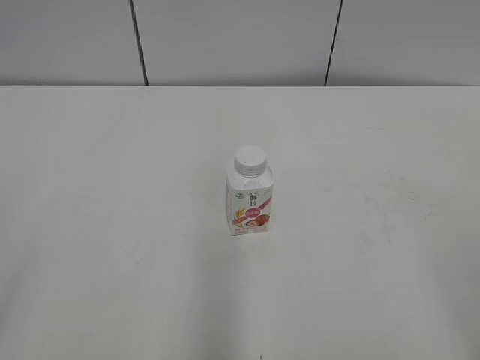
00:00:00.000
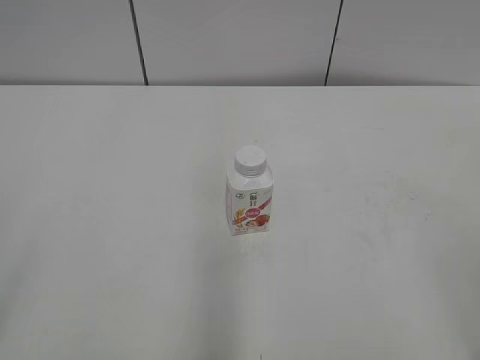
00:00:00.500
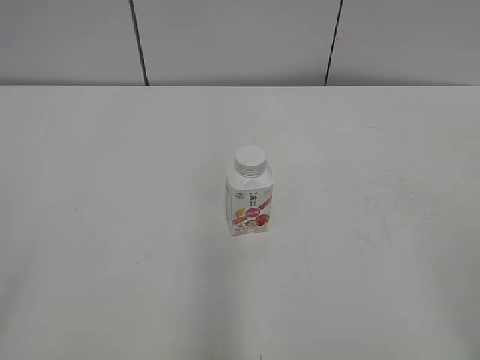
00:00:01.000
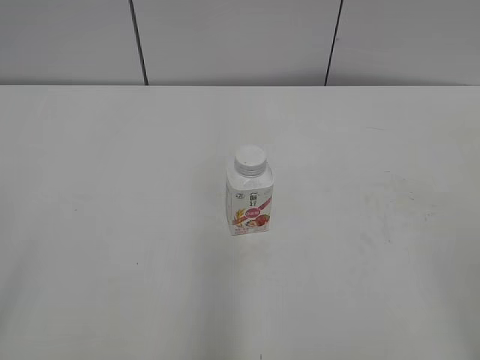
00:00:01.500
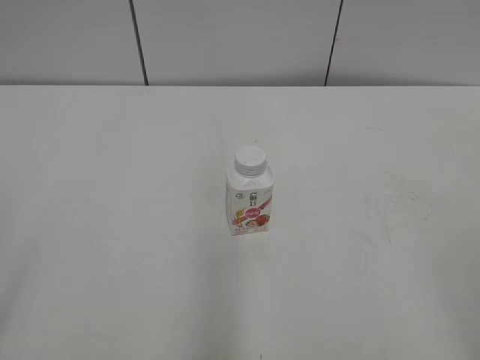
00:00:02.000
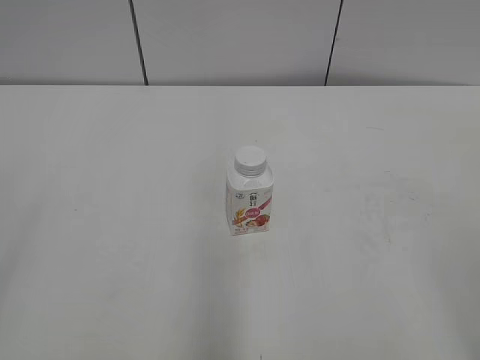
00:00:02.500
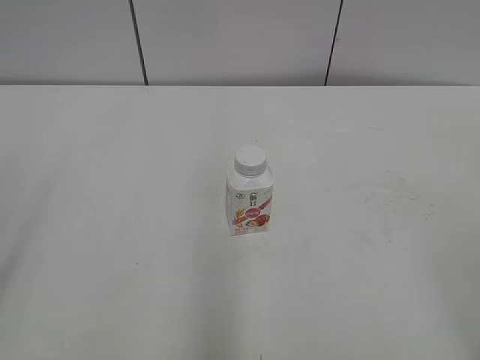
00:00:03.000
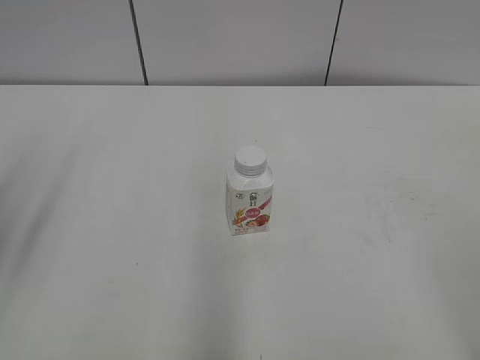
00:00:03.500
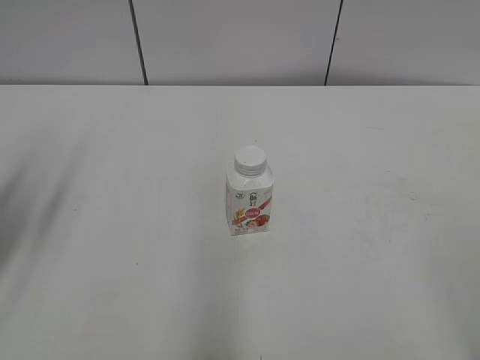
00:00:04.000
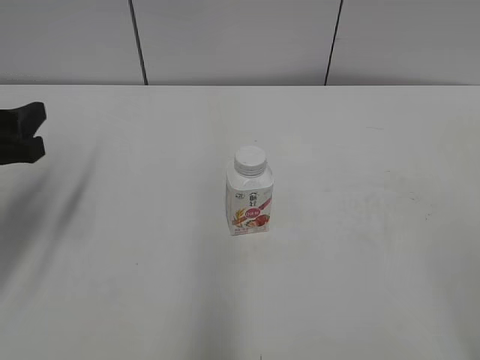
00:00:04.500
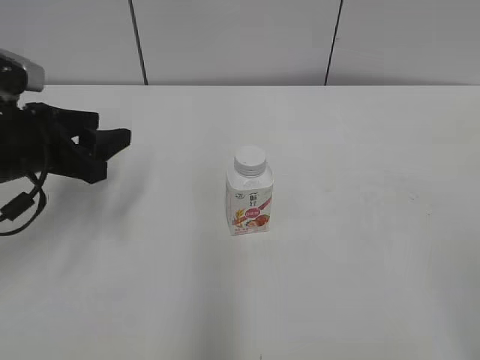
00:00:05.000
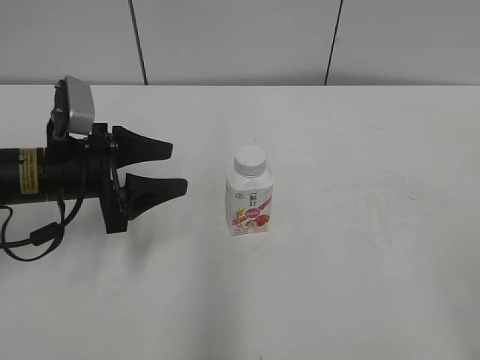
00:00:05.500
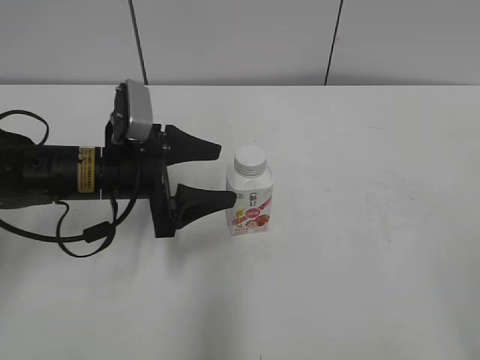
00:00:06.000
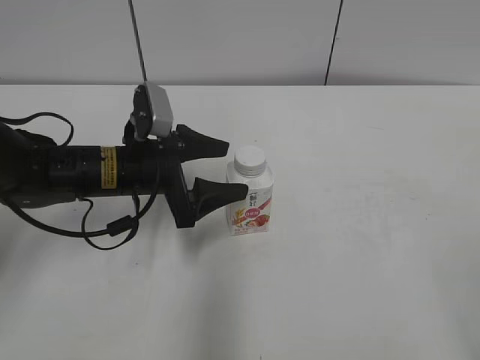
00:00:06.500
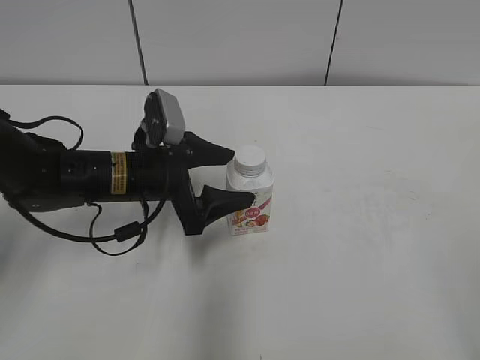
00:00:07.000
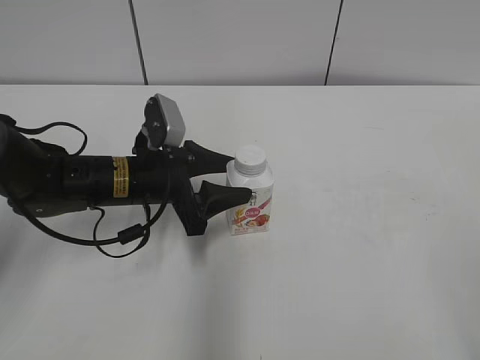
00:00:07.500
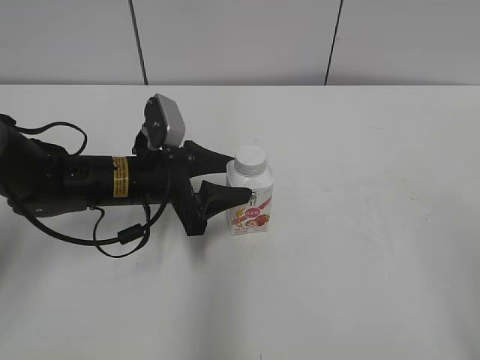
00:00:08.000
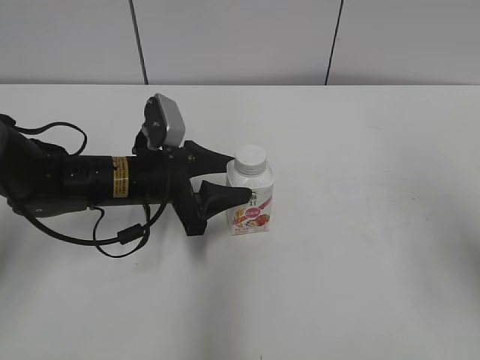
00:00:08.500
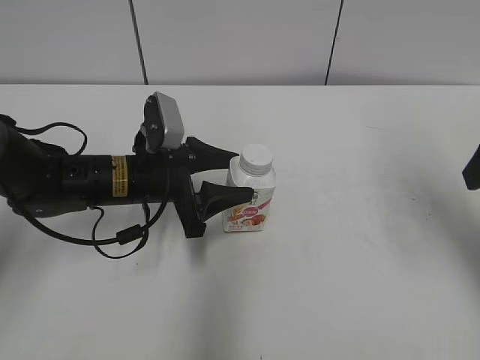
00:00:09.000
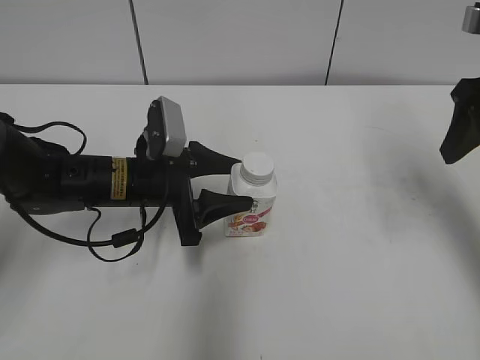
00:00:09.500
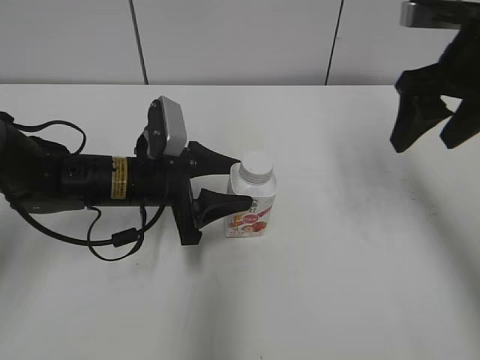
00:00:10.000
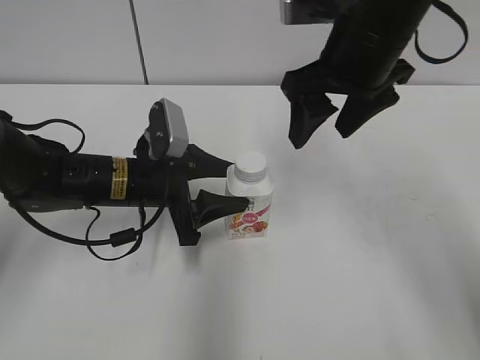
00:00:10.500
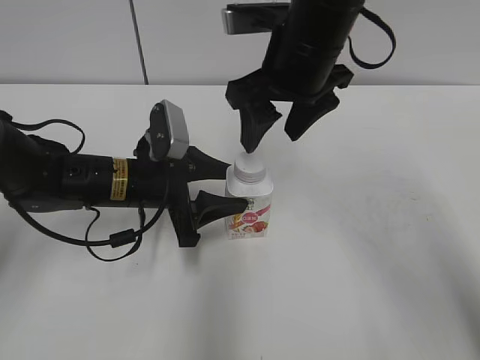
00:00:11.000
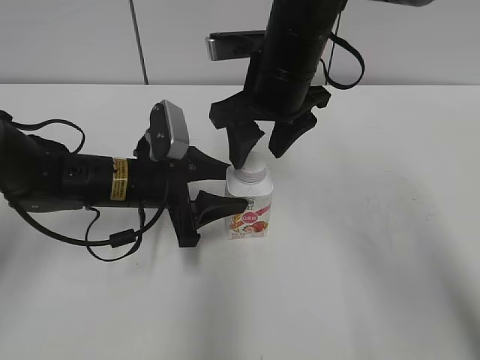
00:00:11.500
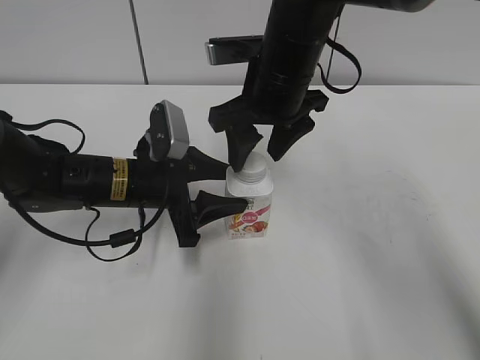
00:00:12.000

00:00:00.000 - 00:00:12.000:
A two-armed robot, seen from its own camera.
Step, 00:00:00.000 - 00:00:08.500: Grab the Yili Changqing with the left hand.
00:00:02.000 - 00:00:04.000: The left gripper shifts approximately 20 cm forward.
00:00:04.000 - 00:00:06.000: The left gripper moves to the right, downward and forward, about 20 cm, and opens up.
00:00:06.000 - 00:00:08.000: The left gripper closes up.
00:00:08.000 - 00:00:10.000: The right gripper goes about 30 cm forward.
00:00:10.000 - 00:00:12.000: The right gripper shifts roughly 15 cm to the left.

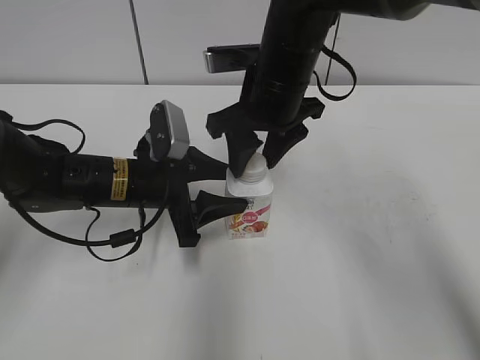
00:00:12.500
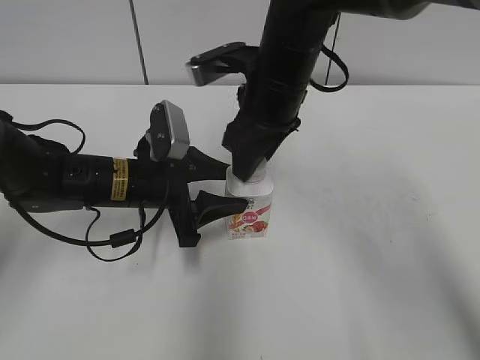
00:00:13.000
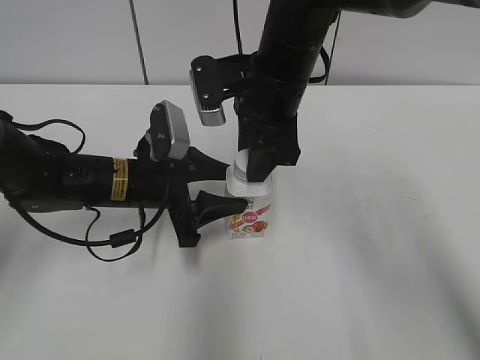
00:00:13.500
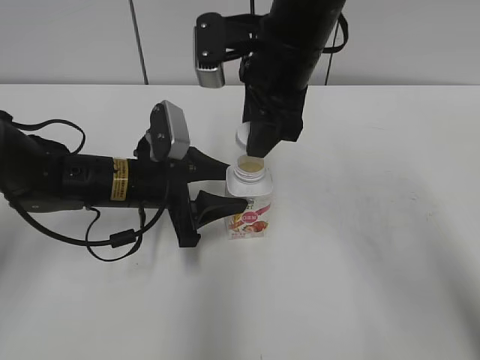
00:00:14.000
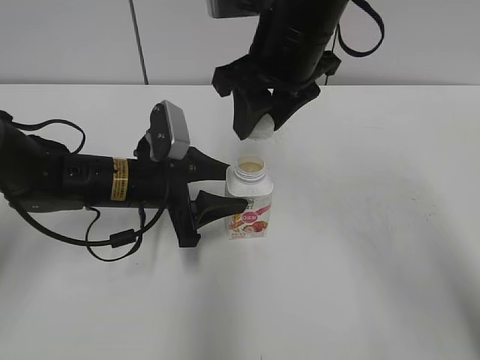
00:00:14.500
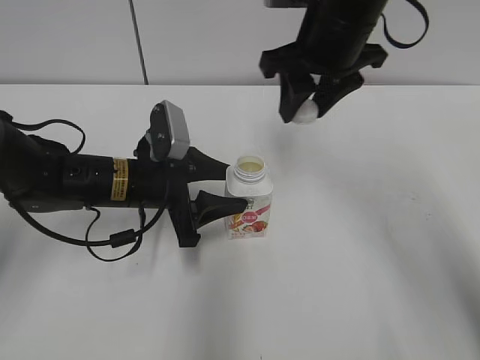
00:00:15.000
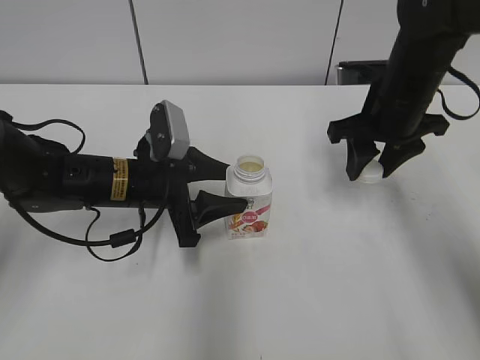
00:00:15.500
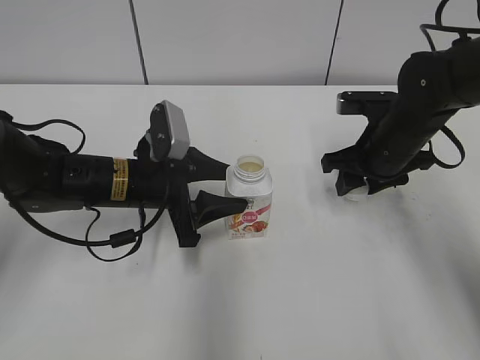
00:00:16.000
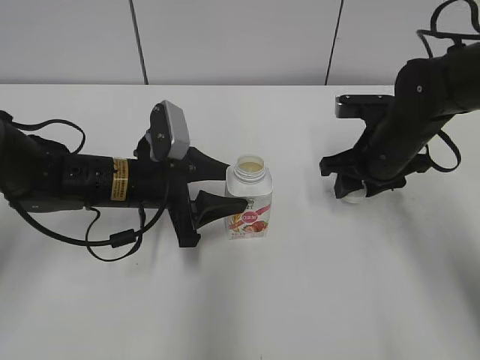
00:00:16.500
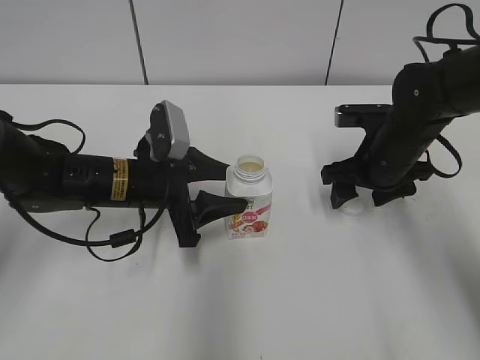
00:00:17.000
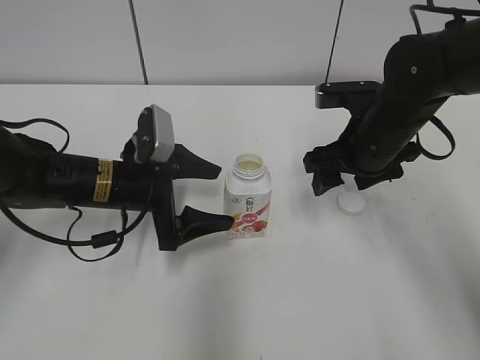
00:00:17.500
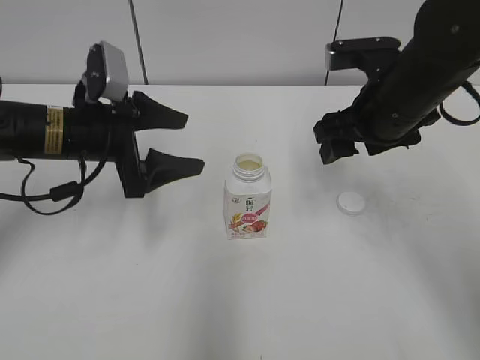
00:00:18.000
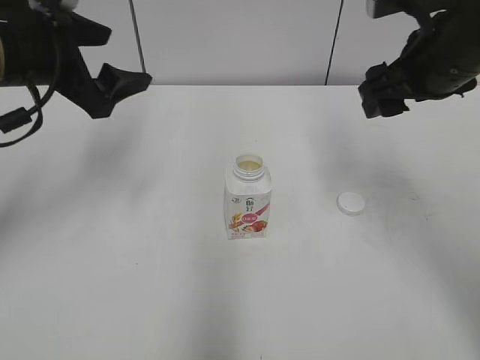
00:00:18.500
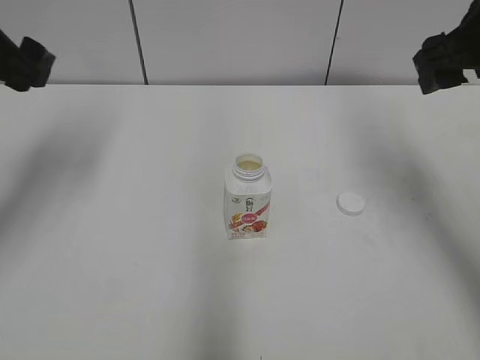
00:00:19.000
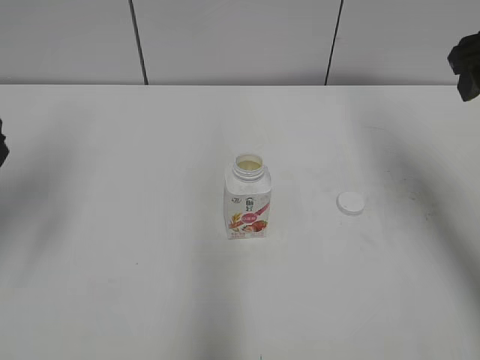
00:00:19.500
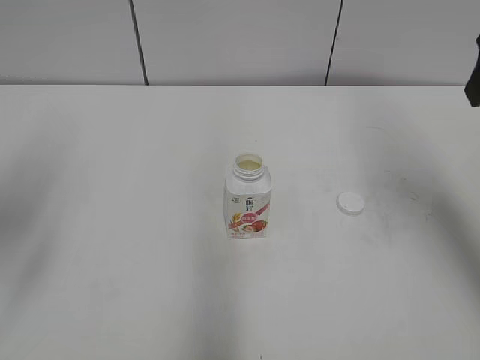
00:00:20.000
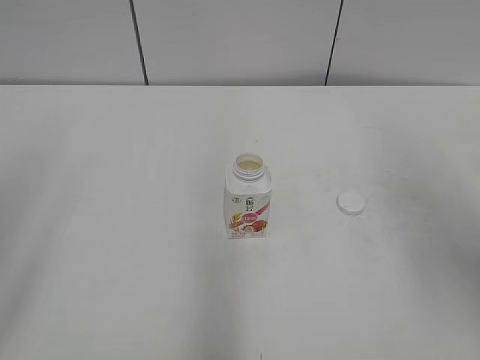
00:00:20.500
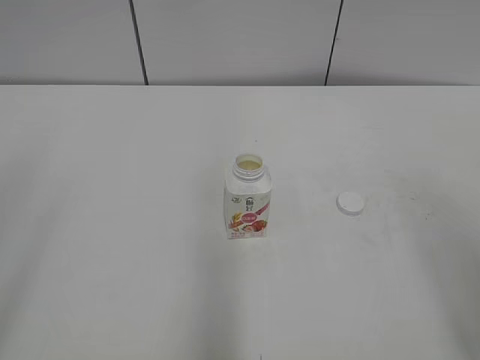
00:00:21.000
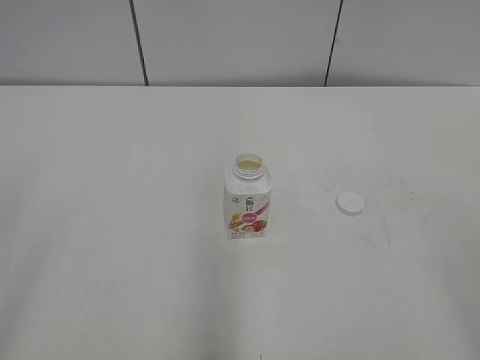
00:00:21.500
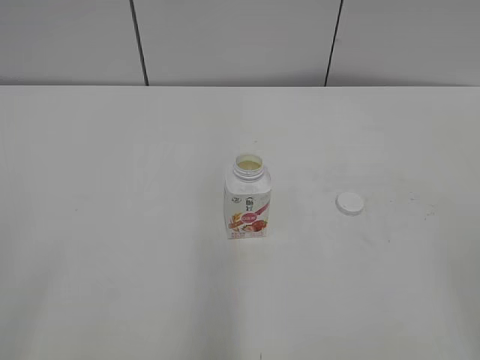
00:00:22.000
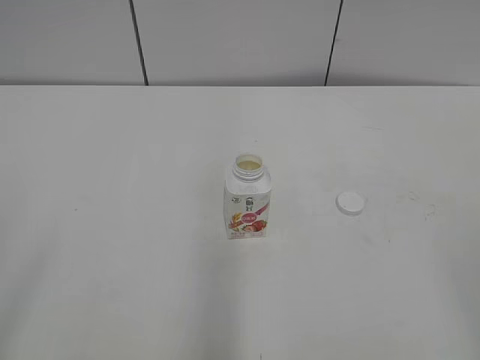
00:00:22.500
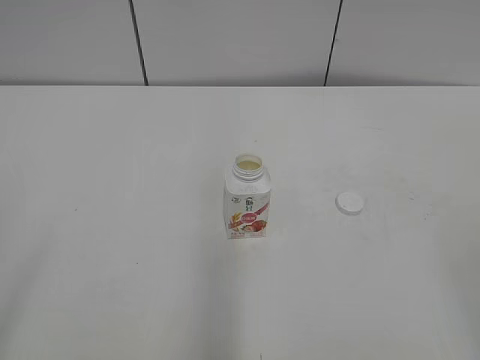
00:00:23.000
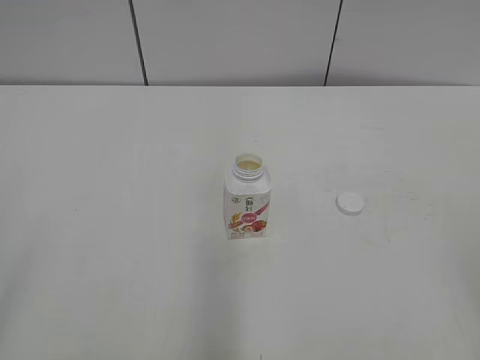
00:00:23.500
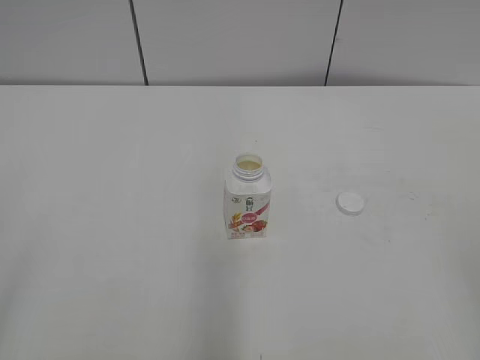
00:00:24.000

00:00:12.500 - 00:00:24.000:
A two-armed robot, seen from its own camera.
Step, 00:00:14.000 - 00:00:16.500: Place the bottle cap on the right.
00:00:12.500 - 00:00:14.500: The right gripper travels upward by approximately 5 cm.
00:00:14.500 - 00:00:16.500: The right gripper shifts roughly 20 cm downward and to the right.
00:00:16.500 - 00:00:18.500: The right gripper heads upward, covering roughly 15 cm, and opens its fingers. The left gripper moves upward and to the left, roughly 20 cm, and opens.
00:00:18.500 - 00:00:20.000: The left gripper travels backward and to the left by approximately 15 cm. Meanwhile the right gripper moves upward and backward, about 10 cm.
00:00:20.000 - 00:00:22.000: The two grippers go some 25 cm backward.
